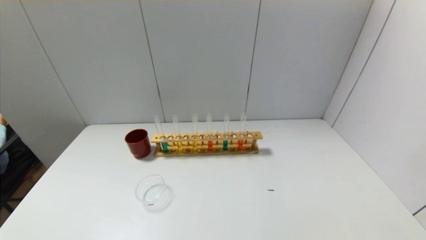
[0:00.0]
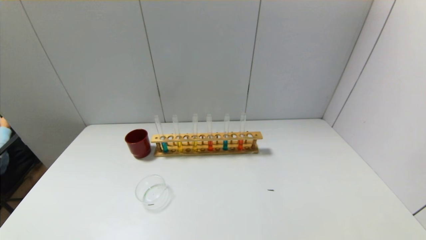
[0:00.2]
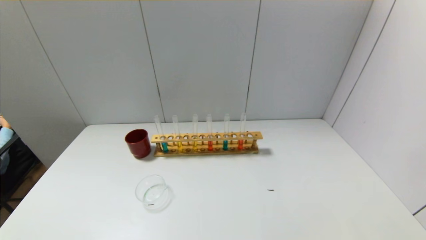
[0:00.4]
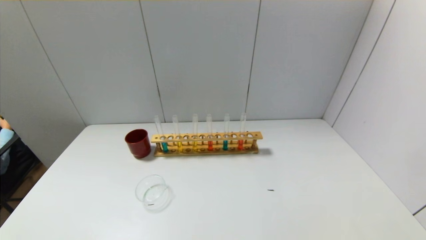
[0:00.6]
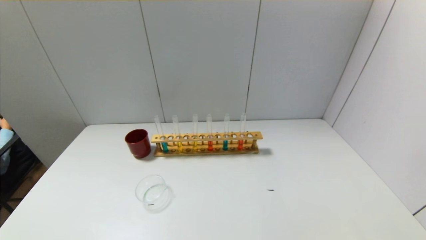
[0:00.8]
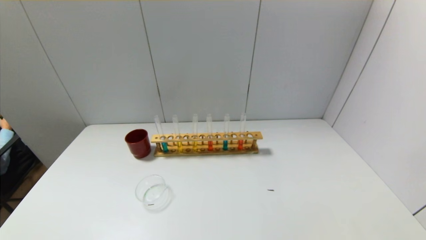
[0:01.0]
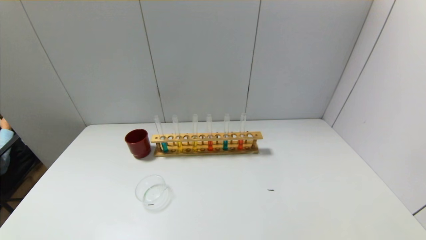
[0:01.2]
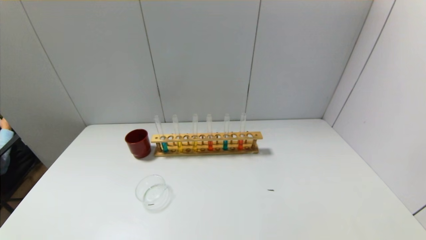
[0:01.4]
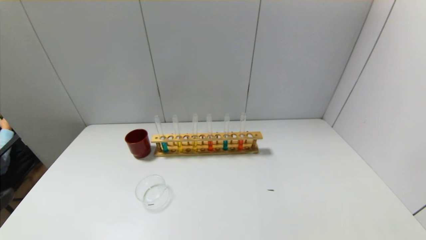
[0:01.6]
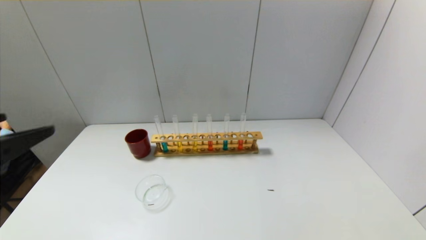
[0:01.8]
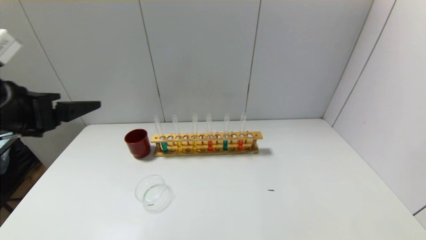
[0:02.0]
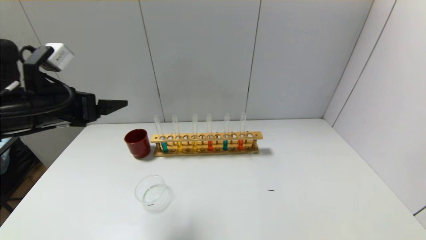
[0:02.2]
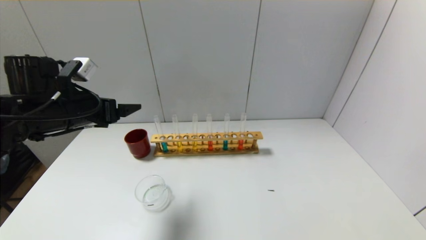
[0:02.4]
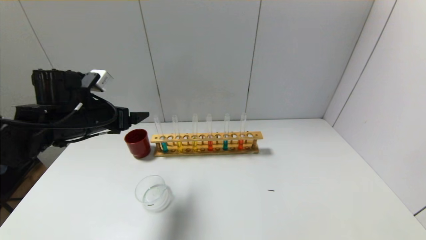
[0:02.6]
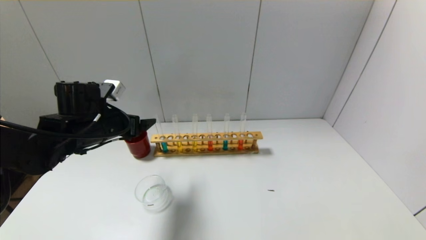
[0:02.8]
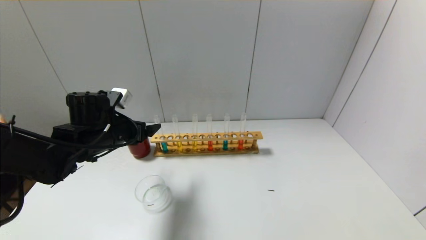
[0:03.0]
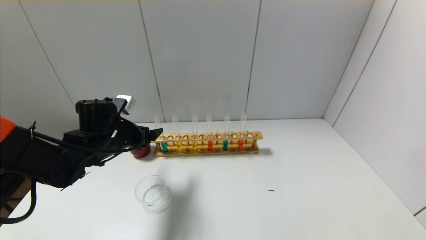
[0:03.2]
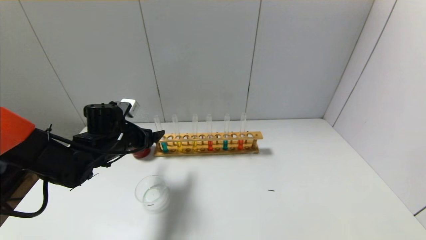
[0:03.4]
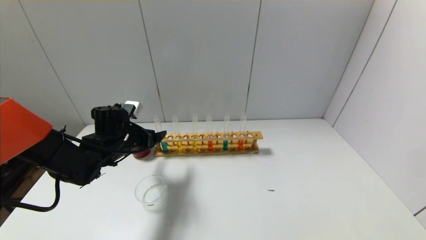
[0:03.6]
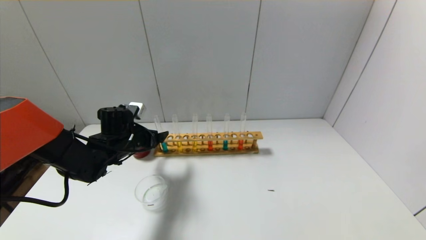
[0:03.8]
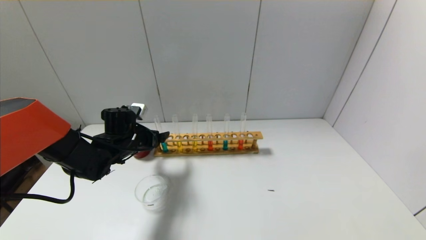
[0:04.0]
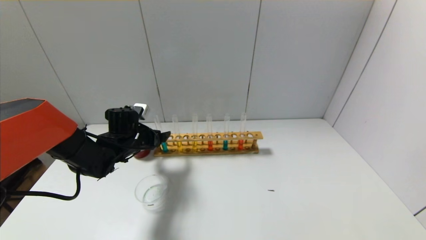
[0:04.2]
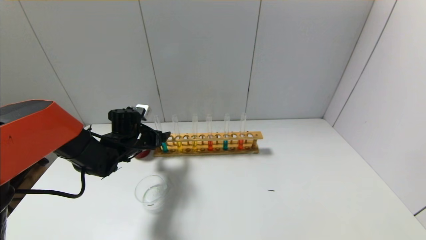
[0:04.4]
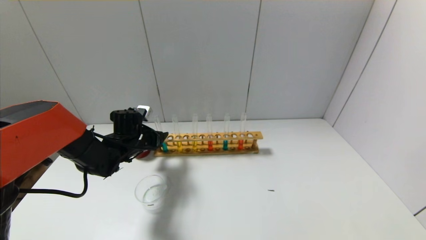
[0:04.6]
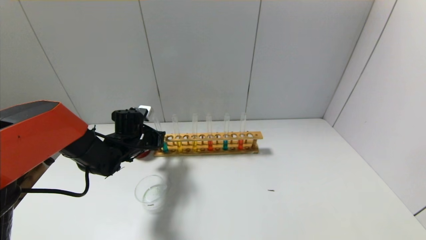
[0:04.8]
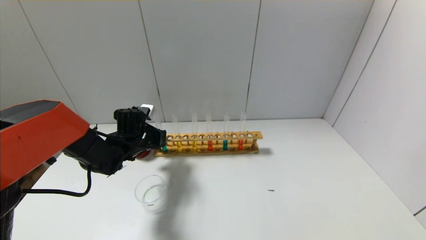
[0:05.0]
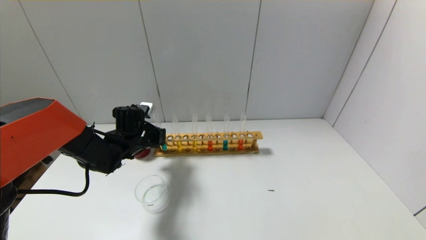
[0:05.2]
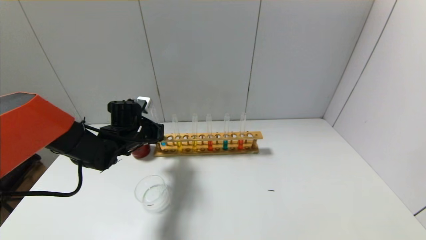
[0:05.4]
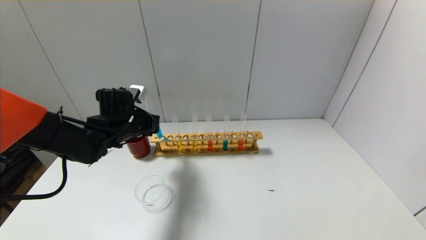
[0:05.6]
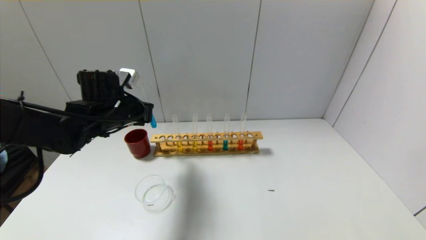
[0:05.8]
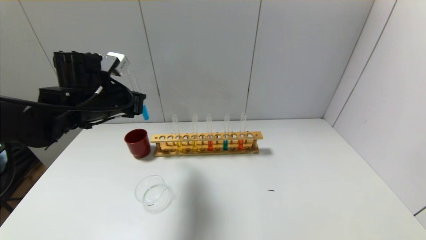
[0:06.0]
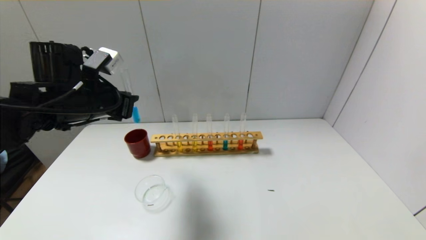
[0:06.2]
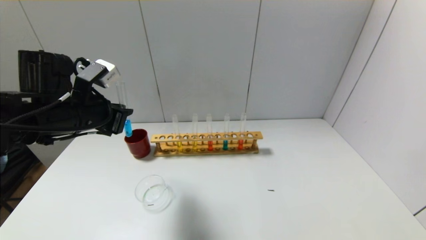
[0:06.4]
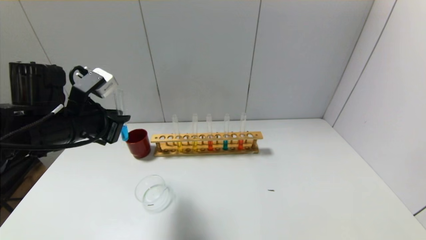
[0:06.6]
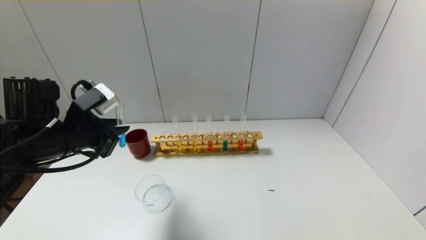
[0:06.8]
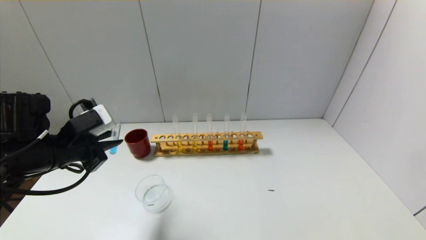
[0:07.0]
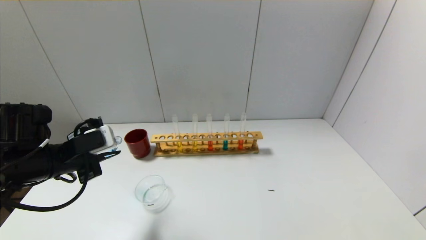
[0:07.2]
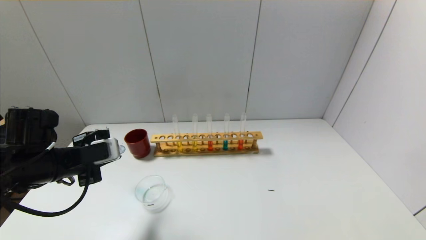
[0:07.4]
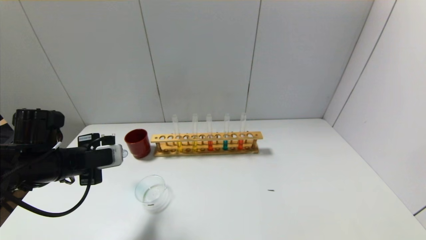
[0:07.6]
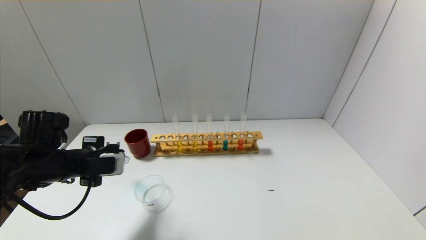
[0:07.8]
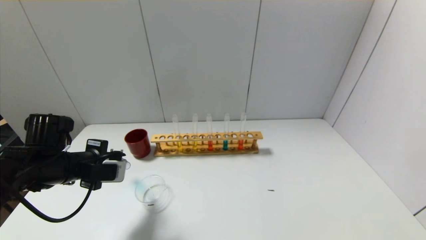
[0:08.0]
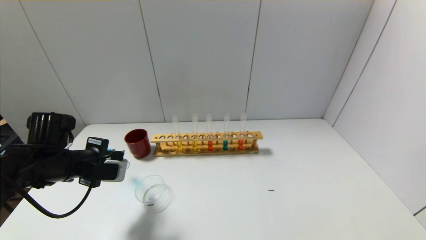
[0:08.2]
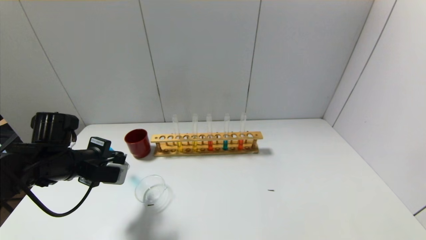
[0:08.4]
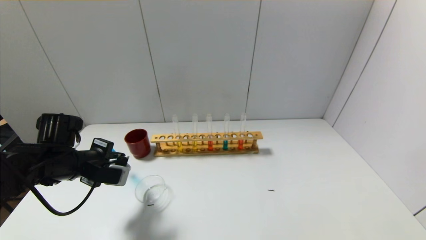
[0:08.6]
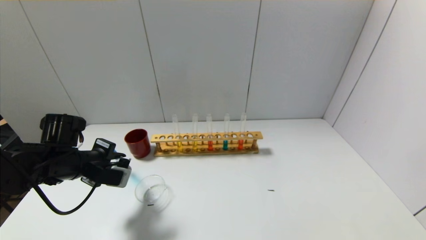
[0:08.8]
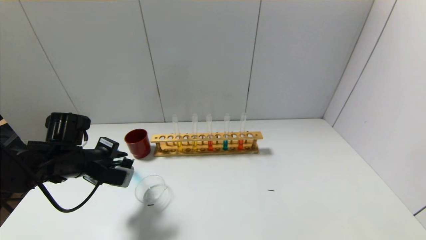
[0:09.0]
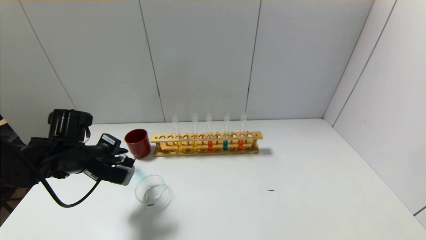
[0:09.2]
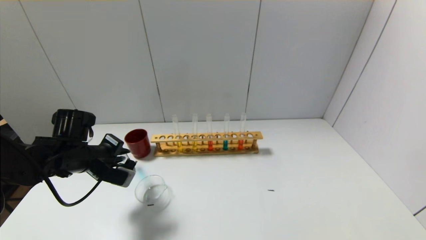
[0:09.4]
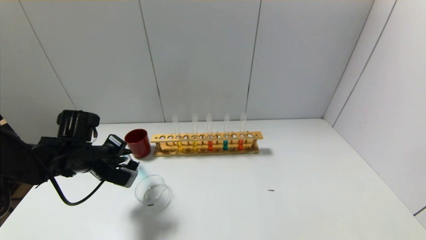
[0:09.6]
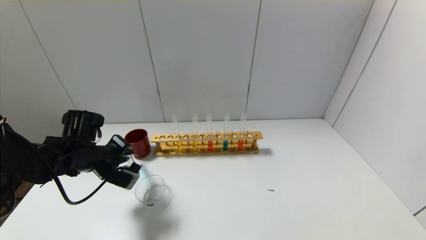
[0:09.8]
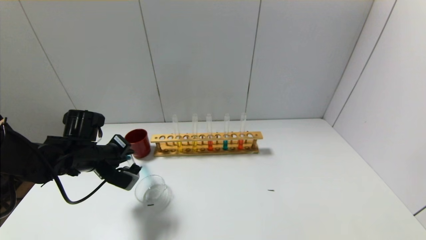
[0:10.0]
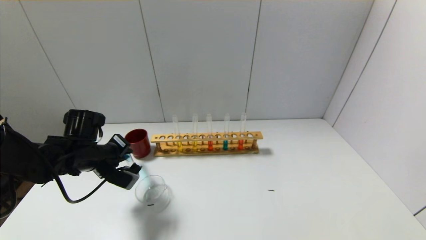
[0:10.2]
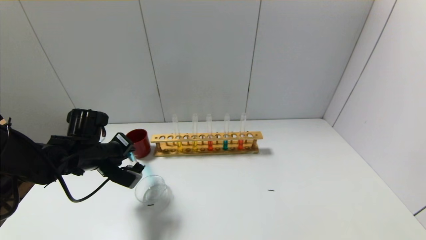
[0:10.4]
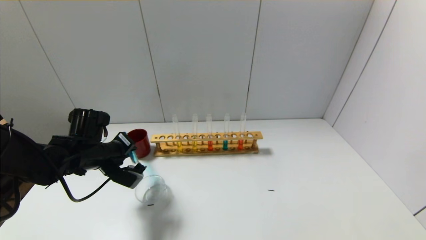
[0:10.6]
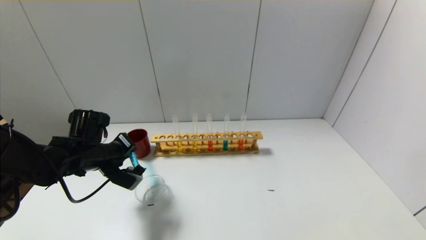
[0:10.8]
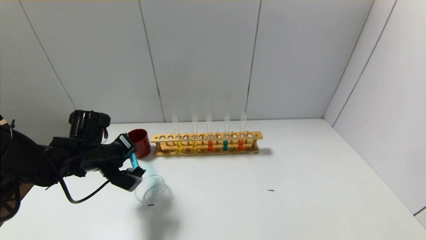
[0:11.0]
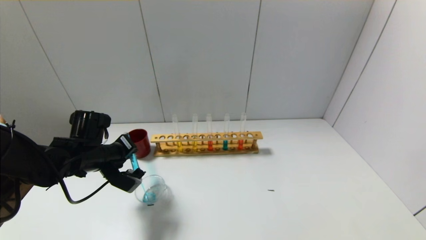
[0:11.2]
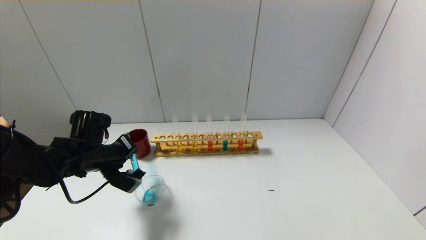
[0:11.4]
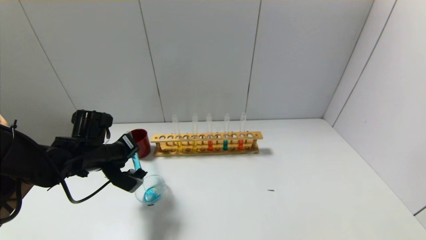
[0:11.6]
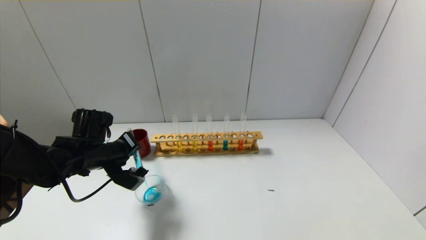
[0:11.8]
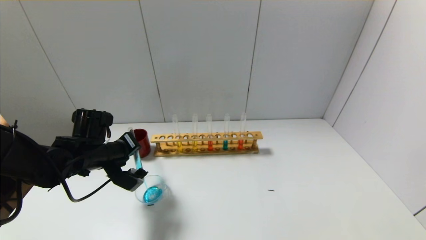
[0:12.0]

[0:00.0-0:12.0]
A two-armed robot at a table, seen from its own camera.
Step, 0:00.0 to 0:05.0: Grasp the blue reagent with the left gripper.
0:01.6 to 0:03.0: The left gripper travels forward by some 30 cm.
0:03.0 to 0:04.4: The left gripper heads downward and forward, covering roughly 10 cm.
0:04.4 to 0:06.0: The left gripper goes approximately 15 cm upward and backward, and closes.
0:06.0 to 0:07.6: The left gripper shifts approximately 15 cm downward, backward and to the left.
0:09.0 to 0:10.4: The grippers make only small movements.
0:10.4 to 0:12.0: The grippers make only small movements.

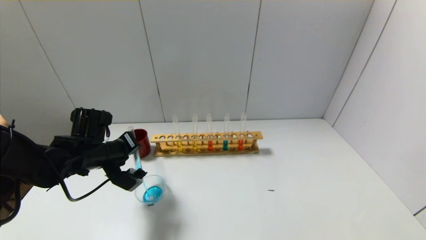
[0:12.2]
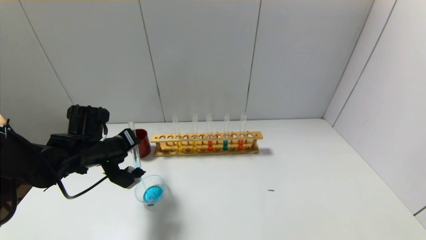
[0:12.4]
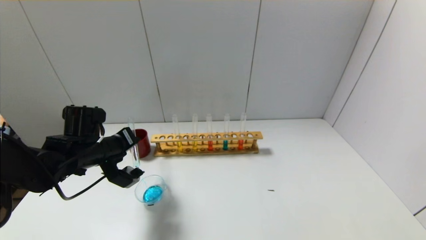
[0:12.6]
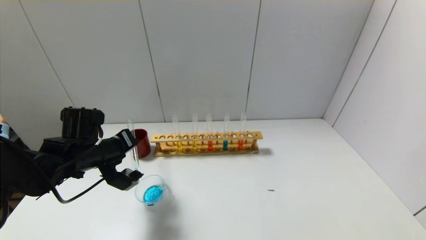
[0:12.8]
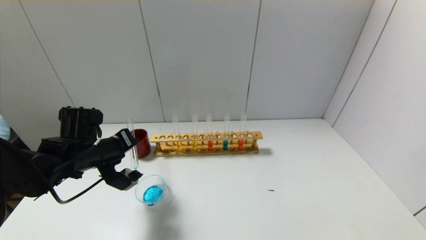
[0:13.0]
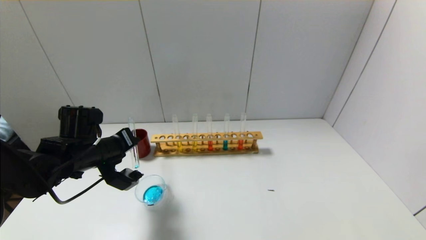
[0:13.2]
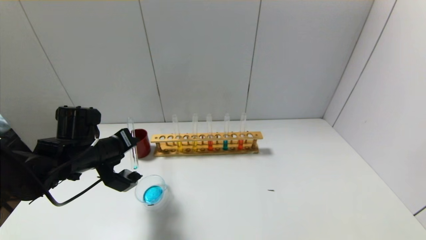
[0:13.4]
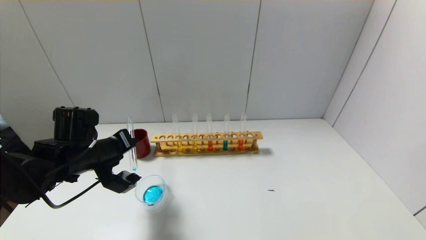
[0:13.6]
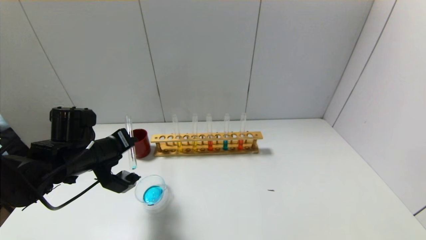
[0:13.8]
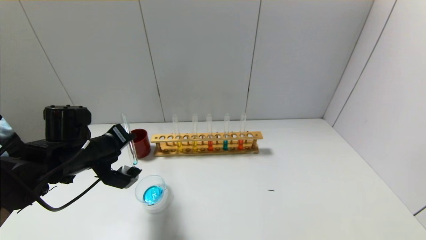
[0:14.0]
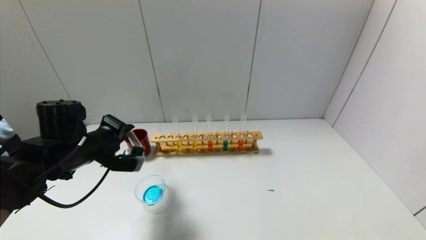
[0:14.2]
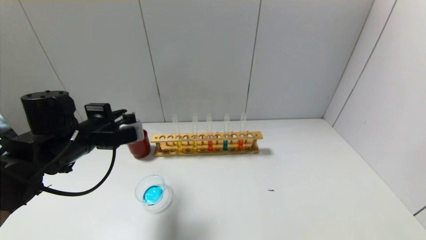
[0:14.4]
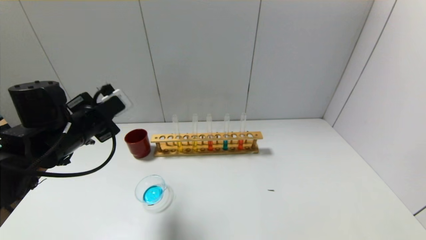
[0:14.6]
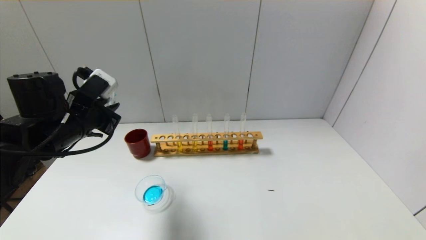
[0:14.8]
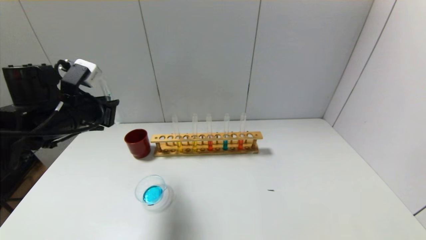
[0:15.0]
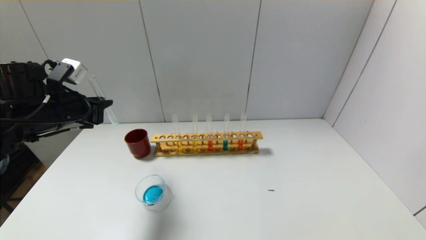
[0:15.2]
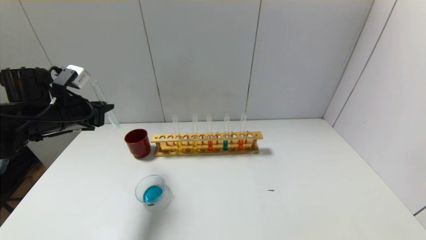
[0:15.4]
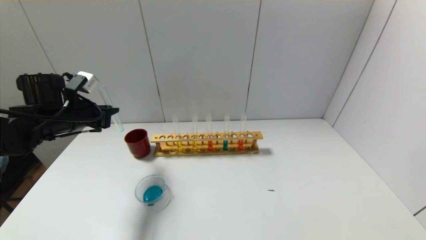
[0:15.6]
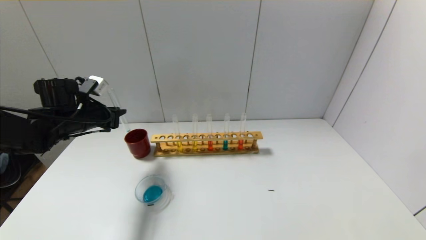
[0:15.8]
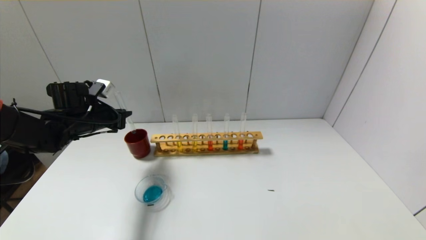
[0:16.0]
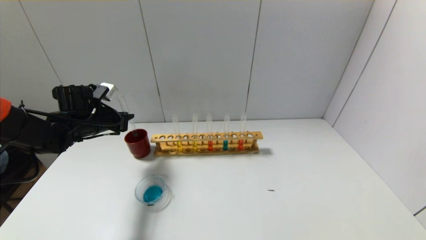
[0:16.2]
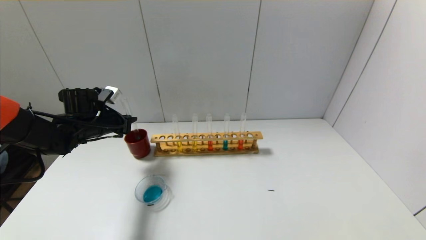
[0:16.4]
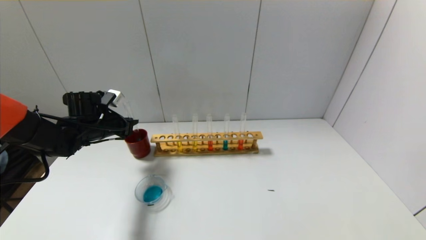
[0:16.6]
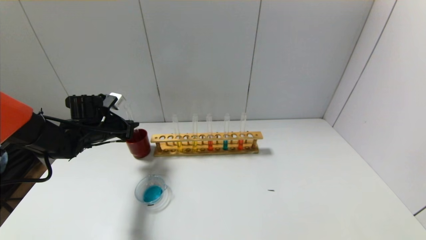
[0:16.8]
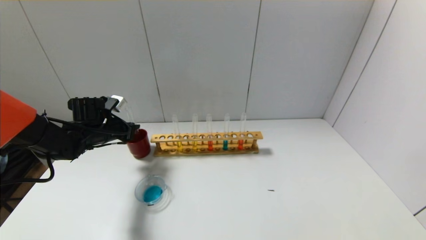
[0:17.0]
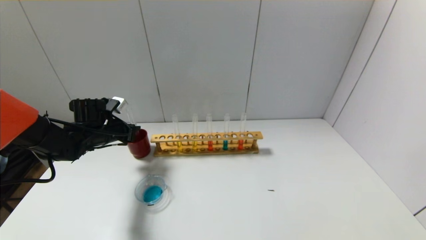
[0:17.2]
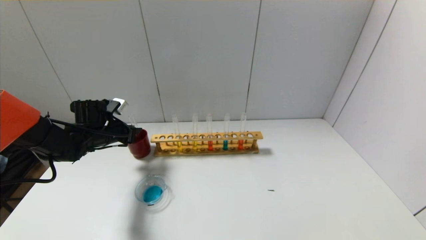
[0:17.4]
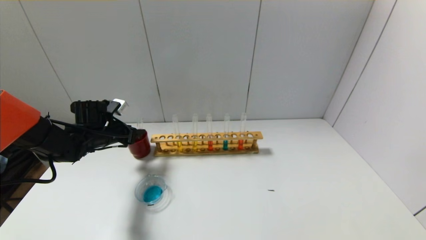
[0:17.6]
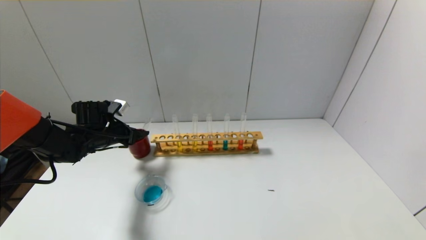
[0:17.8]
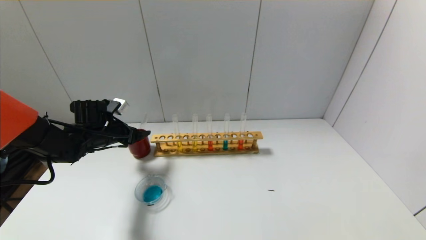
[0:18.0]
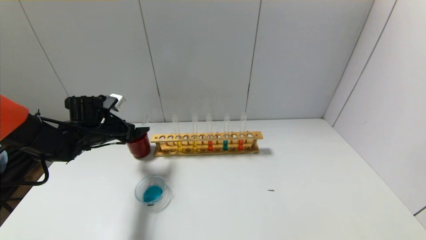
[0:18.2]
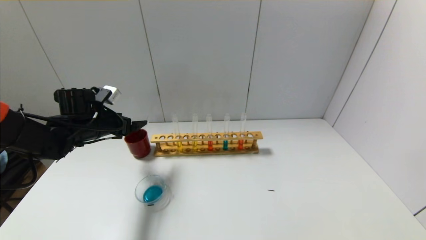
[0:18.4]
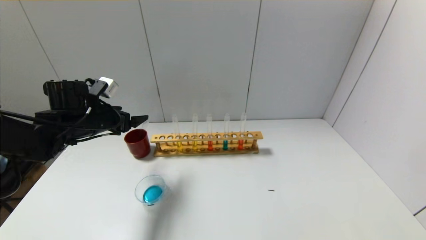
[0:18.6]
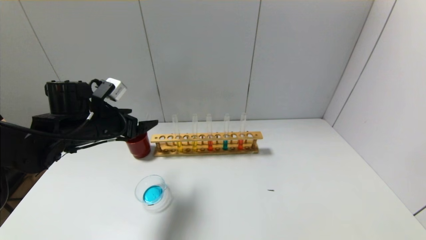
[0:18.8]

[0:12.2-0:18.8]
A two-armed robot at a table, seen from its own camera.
Step, 0:14.2 to 0:17.6: Place the test tube into the brown cup with the left gripper.
0:12.2 to 0:13.8: The grippers move only a little.
0:13.8 to 0:15.4: The left gripper shifts about 10 cm to the left and upward.
0:15.4 to 0:17.2: The left gripper shifts roughly 10 cm downward and forward.
0:17.2 to 0:18.8: The left gripper heads backward and upward, covering about 10 cm, and opens its fingers.
